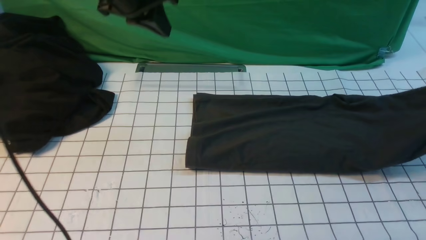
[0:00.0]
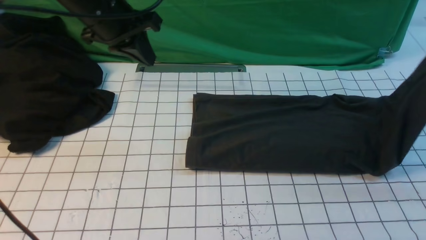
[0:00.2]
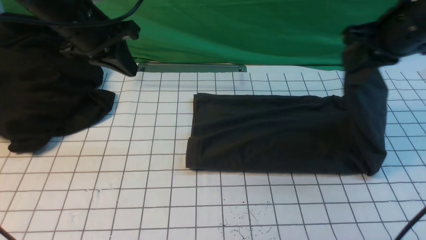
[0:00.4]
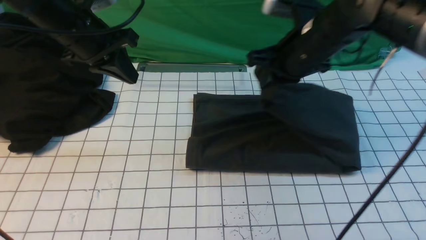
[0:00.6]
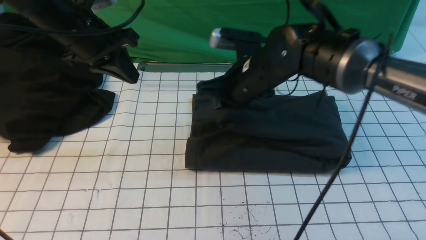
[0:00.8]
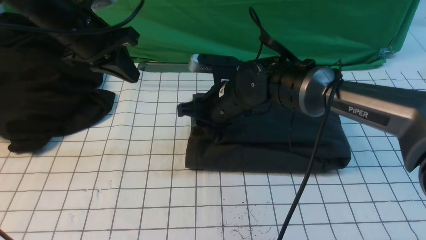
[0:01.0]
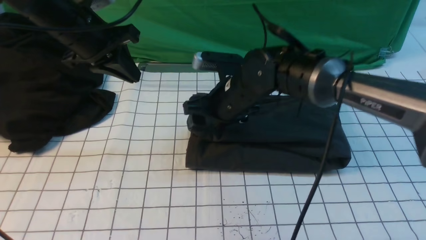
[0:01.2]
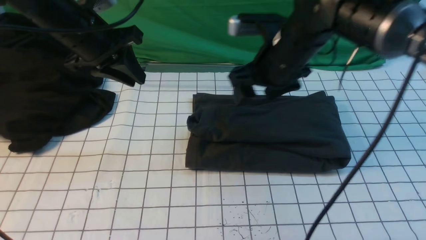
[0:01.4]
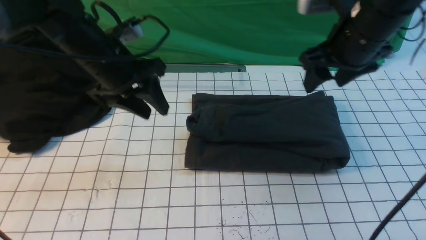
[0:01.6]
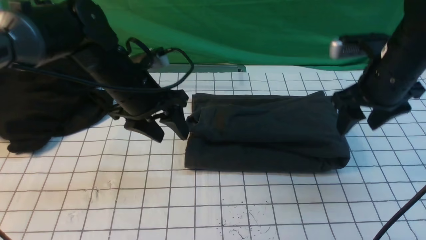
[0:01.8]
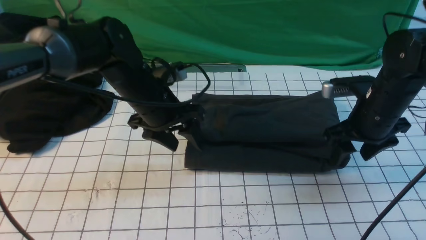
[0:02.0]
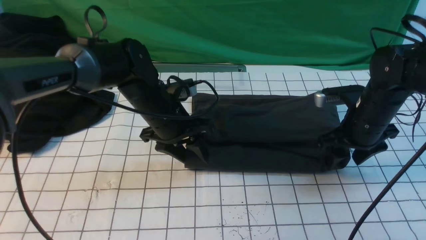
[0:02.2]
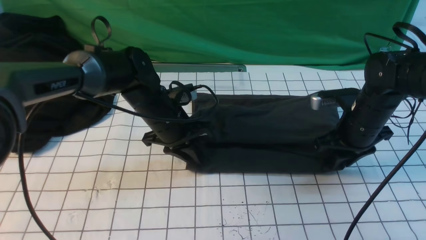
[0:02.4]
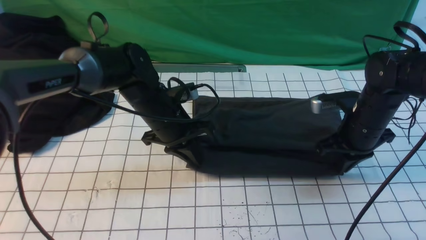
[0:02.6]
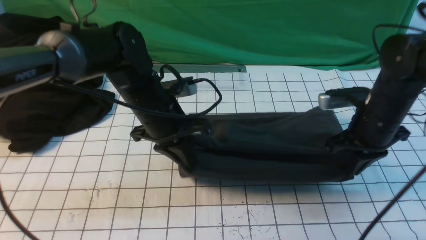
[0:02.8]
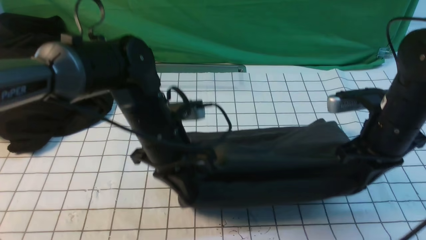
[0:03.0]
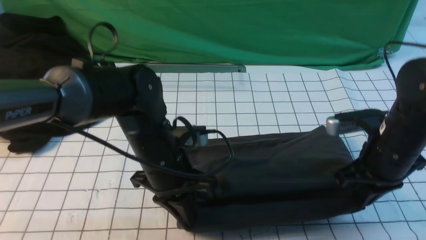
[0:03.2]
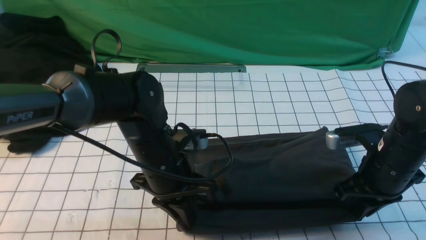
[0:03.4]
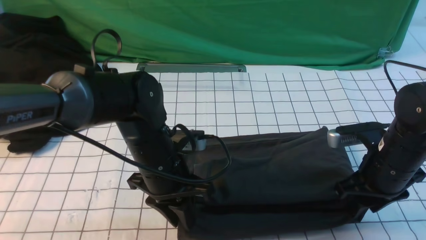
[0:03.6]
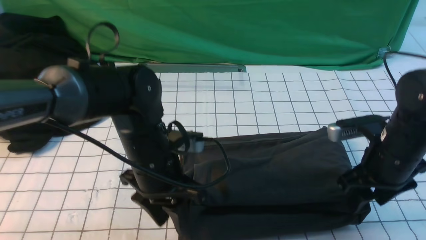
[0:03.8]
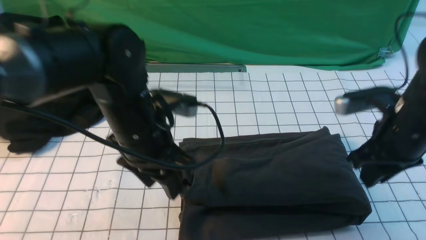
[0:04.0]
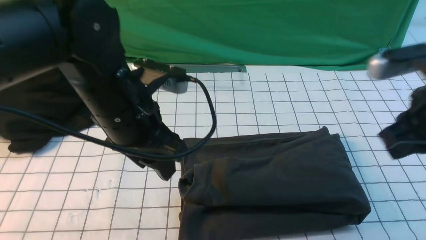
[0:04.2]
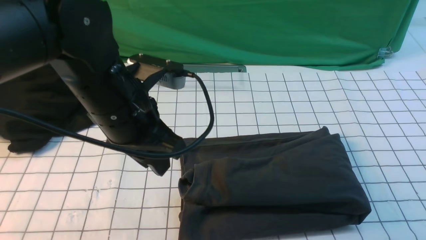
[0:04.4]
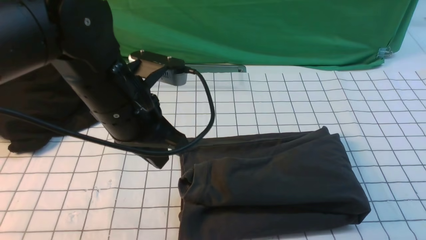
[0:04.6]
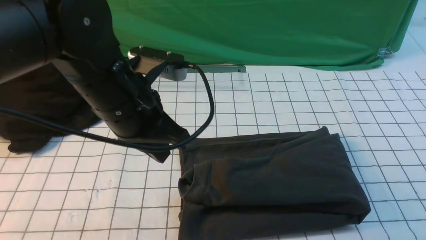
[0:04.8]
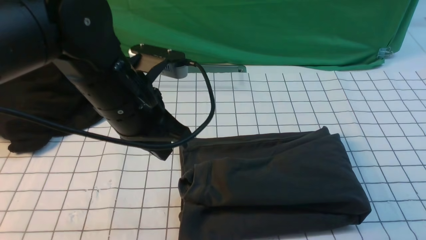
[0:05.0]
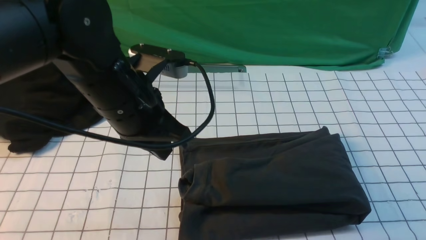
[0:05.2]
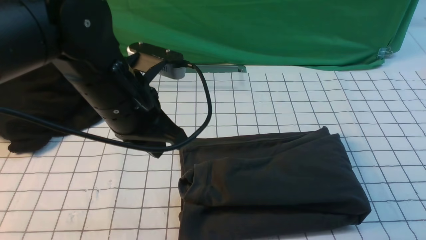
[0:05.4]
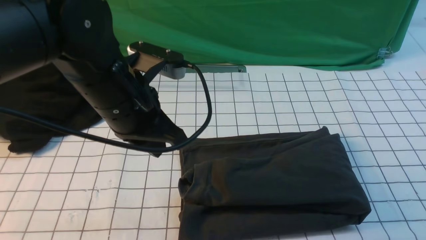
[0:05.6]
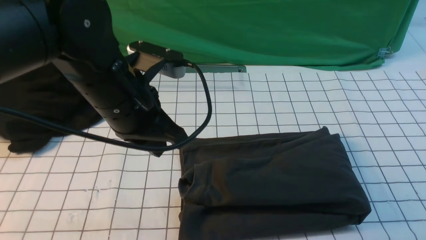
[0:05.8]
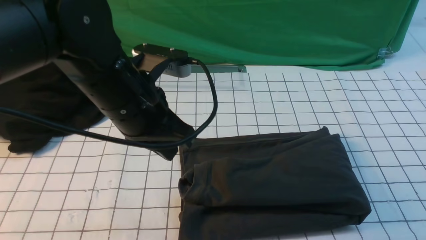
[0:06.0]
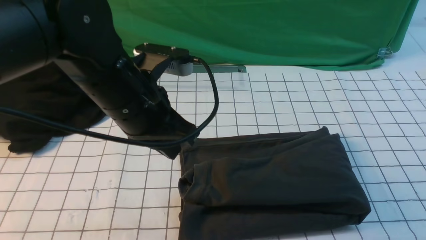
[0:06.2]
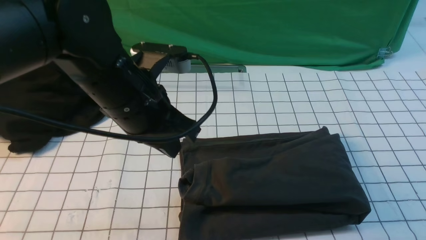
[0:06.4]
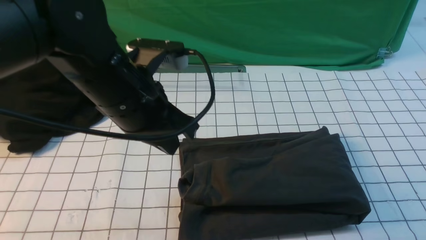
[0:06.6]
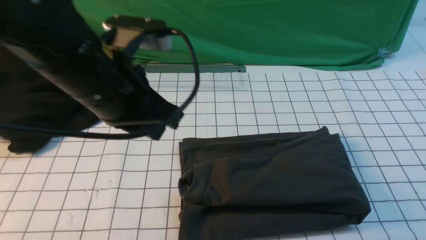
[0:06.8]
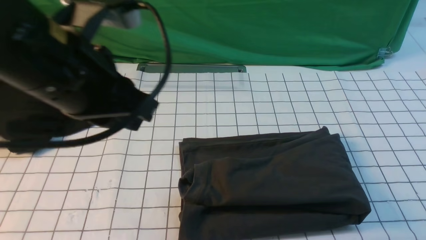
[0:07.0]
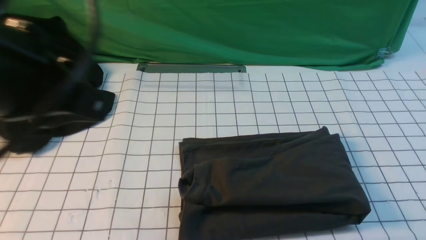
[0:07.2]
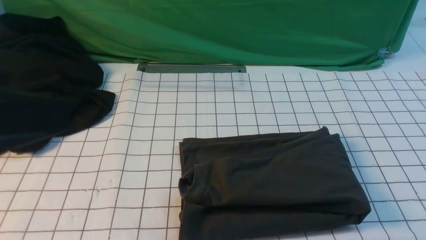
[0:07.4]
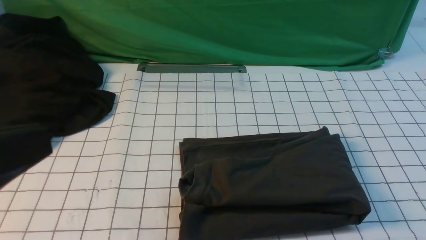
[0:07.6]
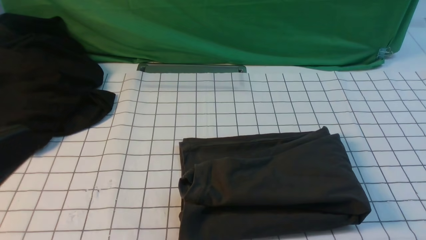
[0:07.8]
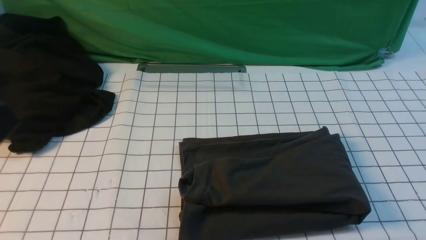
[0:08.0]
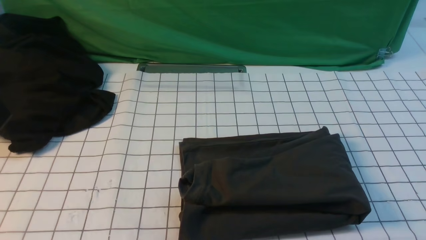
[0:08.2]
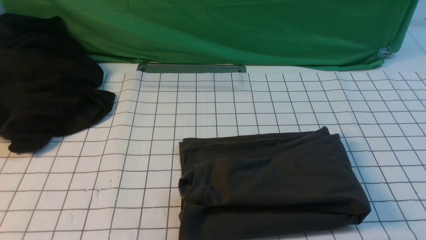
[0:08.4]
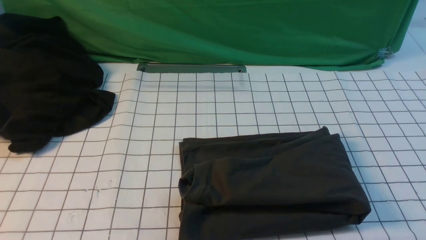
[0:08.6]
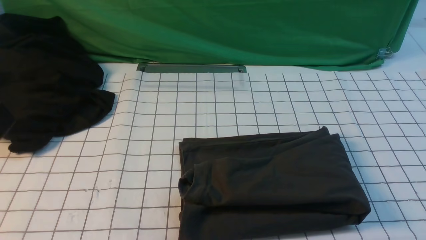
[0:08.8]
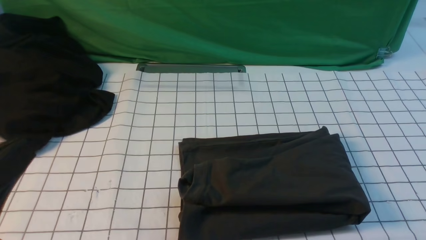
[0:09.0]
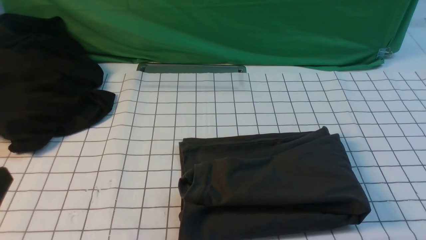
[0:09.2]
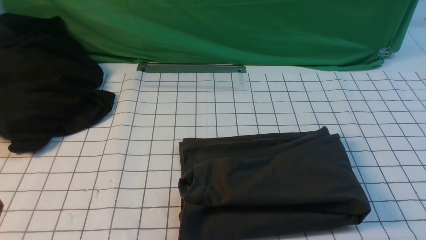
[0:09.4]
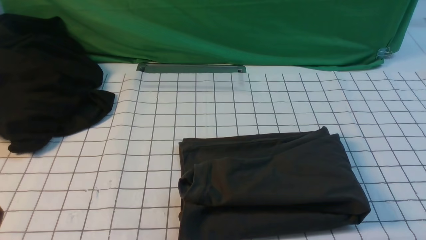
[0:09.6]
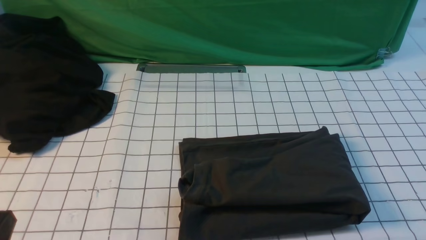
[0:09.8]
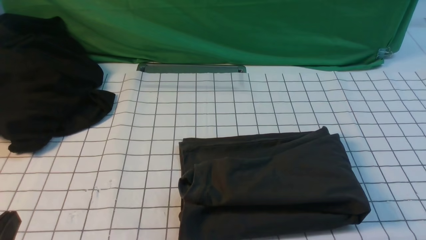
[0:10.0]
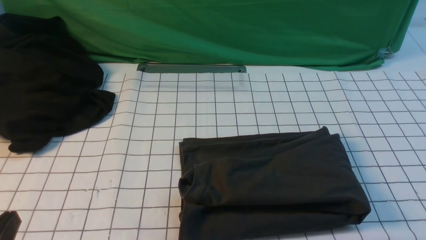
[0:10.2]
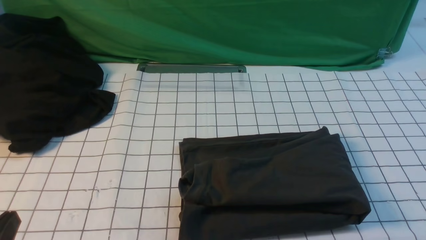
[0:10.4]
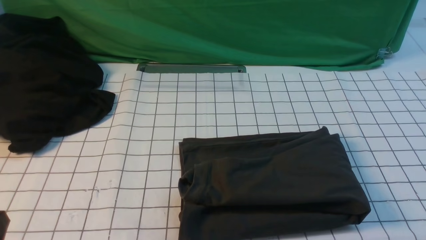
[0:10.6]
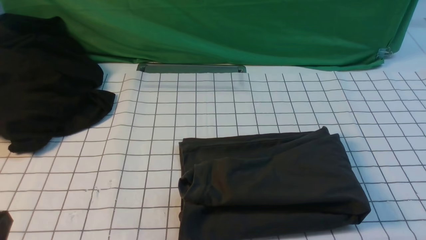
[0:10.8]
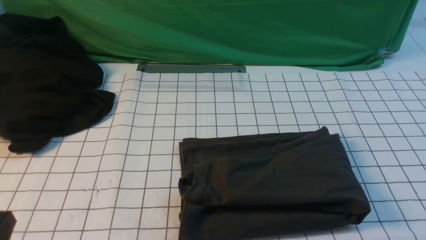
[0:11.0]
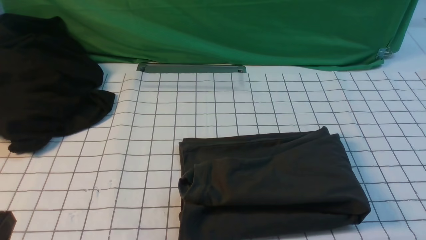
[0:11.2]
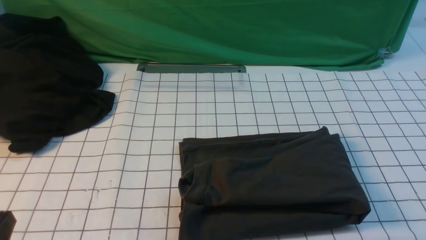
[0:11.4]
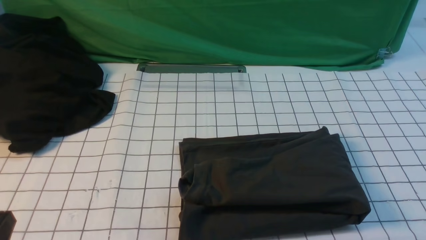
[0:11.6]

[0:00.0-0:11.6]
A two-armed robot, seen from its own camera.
Step, 0:00.0 to 0:01.0: use the right arm to drag the right edge of the fabric to the left and folds it over the left edge.
0:00.0 to 0:01.4: The right gripper moves to the left, some 35 cm, and opens. Meanwhile the left gripper moves downward, about 5 cm, and opens.
0:01.4 to 0:02.8: The right gripper shifts about 15 cm to the right and downward, and closes its fingers, while the left gripper is displaced to the right, downward and backward by some 15 cm, and closes its fingers.
0:02.8 to 0:04.4: The left gripper moves upward and backward, some 10 cm, and opens its fingers. The right gripper goes about 25 cm upward and backward, and opens, then closes once more.
0:04.4 to 0:05.8: The right gripper heads downward and backward, covering about 15 cm. The left gripper closes.
0:05.8 to 0:07.2: The right gripper moves downward, roughly 10 cm. The left gripper goes about 20 cm backward, upward and to the left.
0:07.2 to 0:08.8: The left gripper moves backward, downward and to the left, approximately 15 cm.
0:10.2 to 0:11.6: Both grippers stay put.
